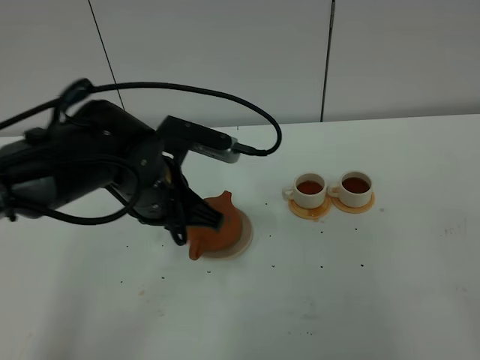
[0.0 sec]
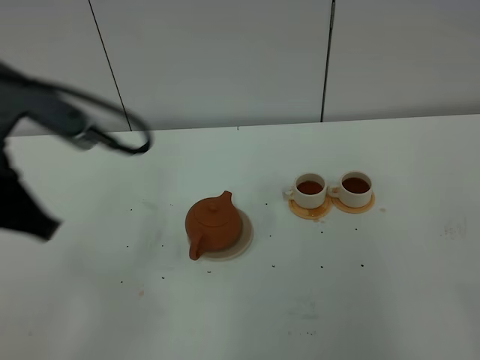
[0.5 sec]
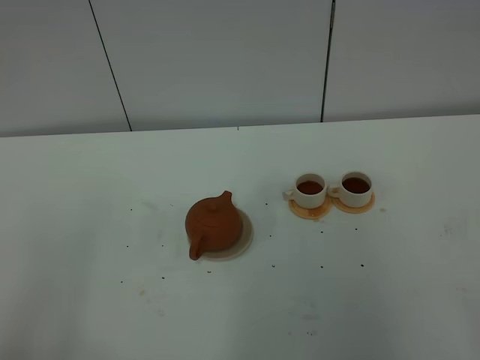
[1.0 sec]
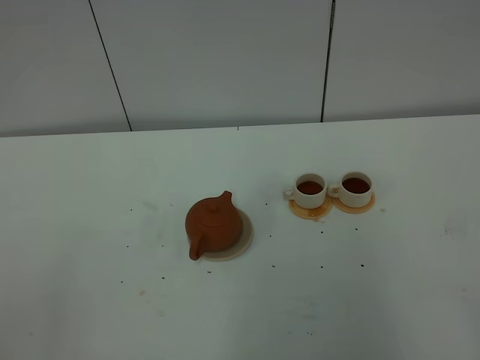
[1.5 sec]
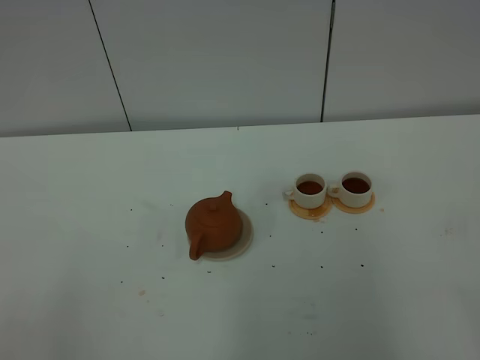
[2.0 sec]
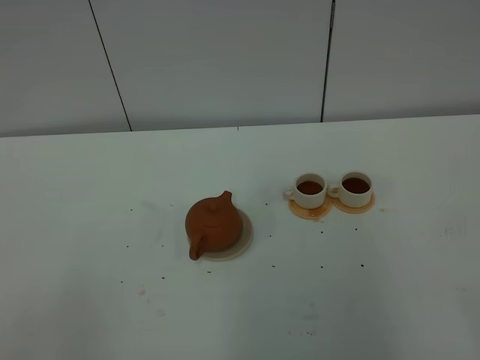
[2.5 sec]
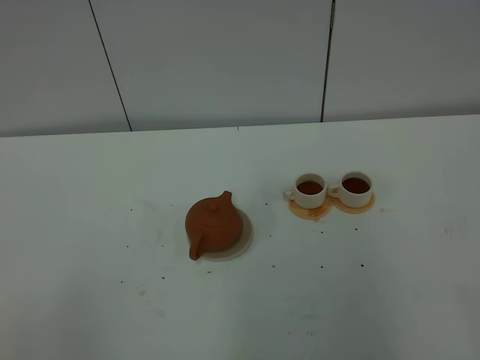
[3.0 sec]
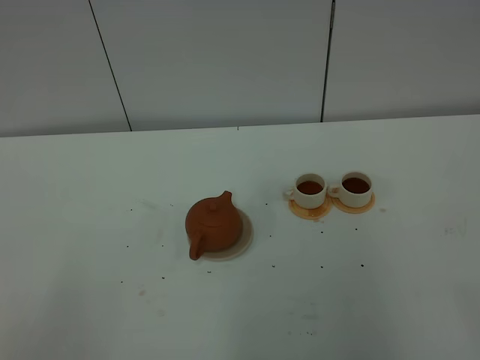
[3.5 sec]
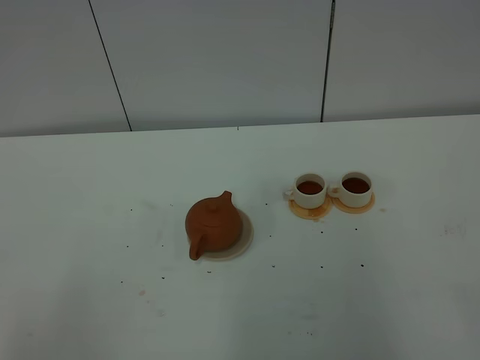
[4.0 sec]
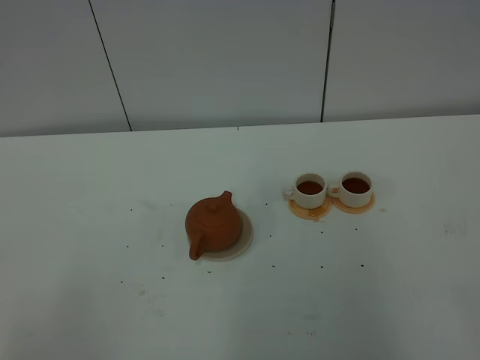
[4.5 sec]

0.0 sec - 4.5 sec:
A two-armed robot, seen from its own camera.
Task of the whole recording: grasp the brown teapot and pour the tea into the two white teacups one by one, put the brown teapot back in its original place.
0.0 sec - 2.0 sec: The left gripper travels backward and to the left by about 35 cm, and closes its fingers.

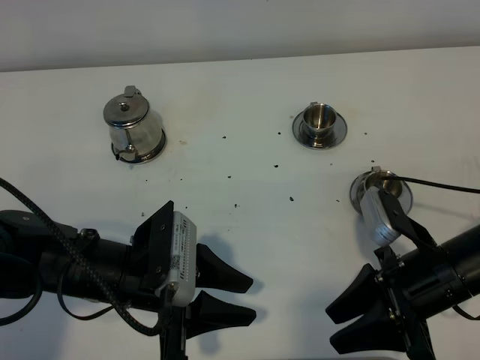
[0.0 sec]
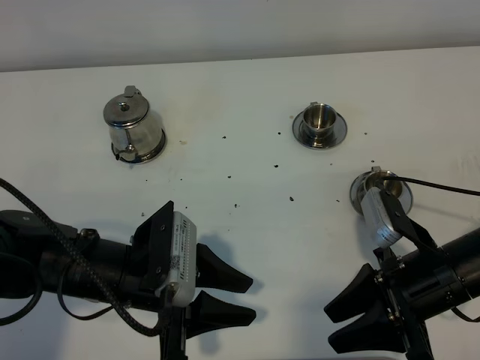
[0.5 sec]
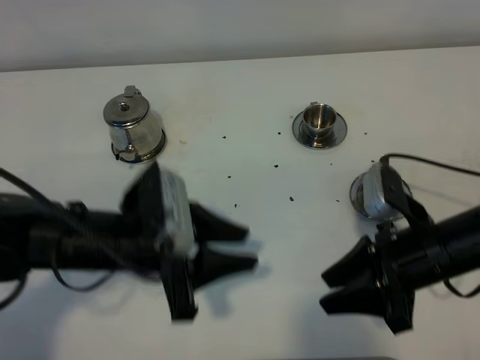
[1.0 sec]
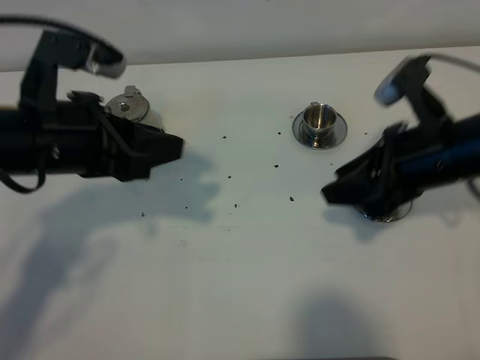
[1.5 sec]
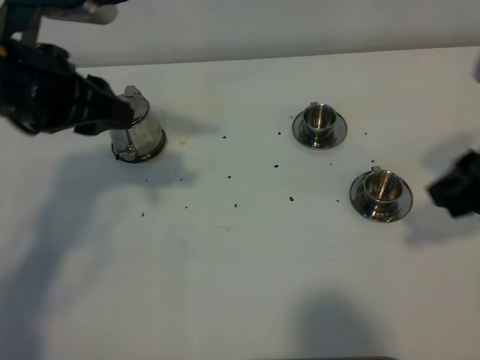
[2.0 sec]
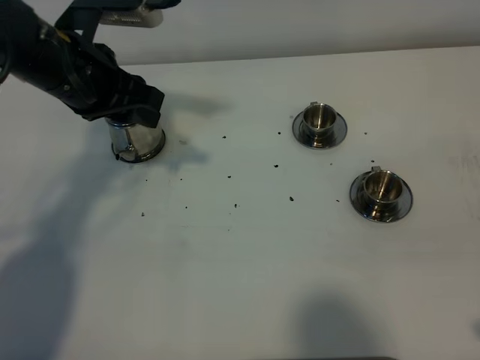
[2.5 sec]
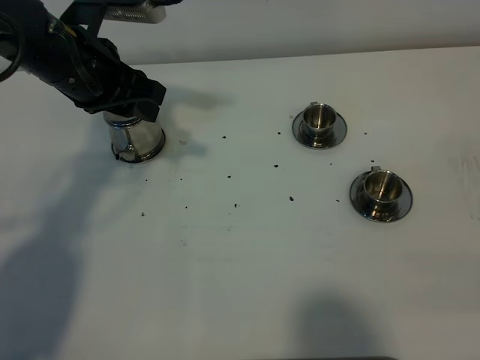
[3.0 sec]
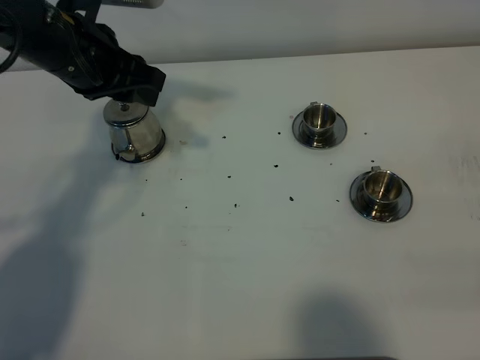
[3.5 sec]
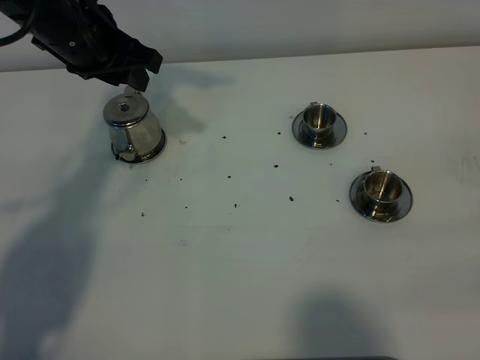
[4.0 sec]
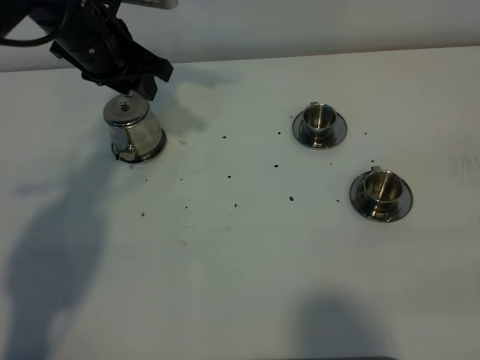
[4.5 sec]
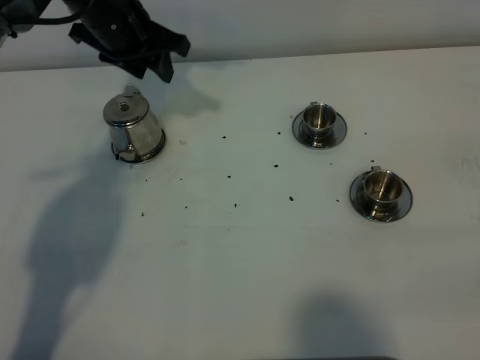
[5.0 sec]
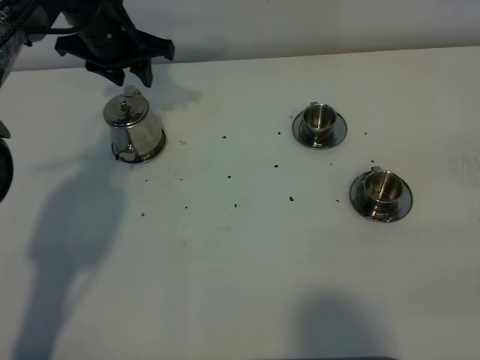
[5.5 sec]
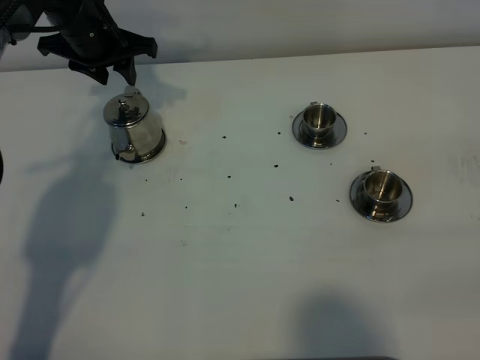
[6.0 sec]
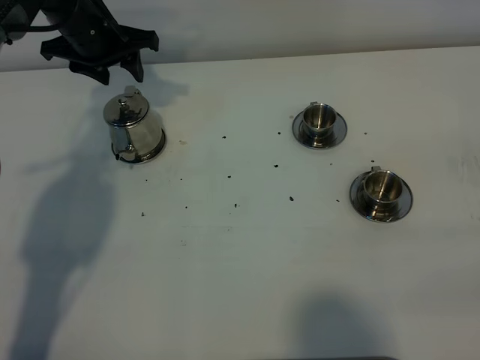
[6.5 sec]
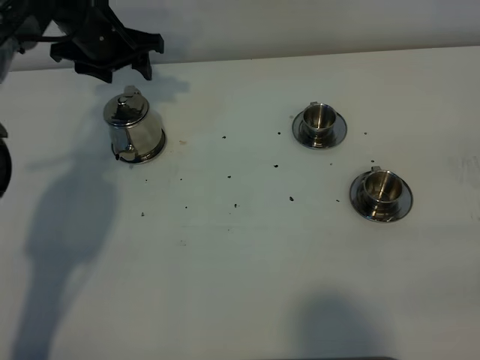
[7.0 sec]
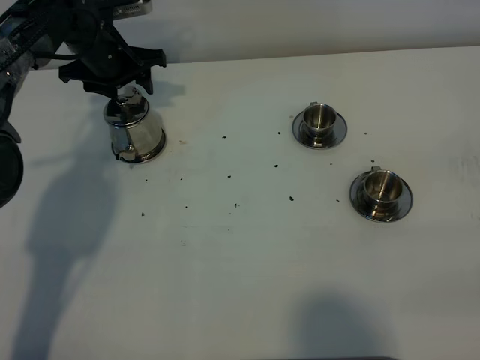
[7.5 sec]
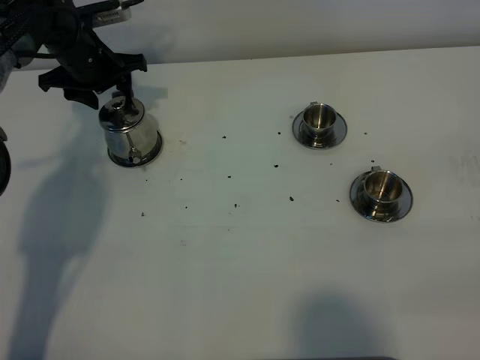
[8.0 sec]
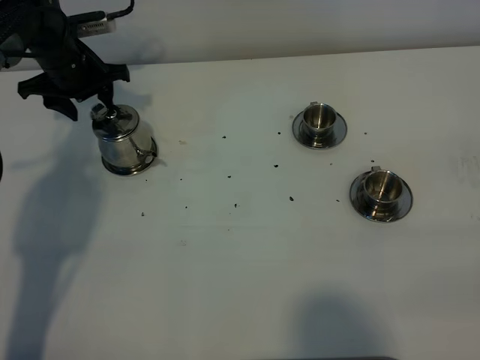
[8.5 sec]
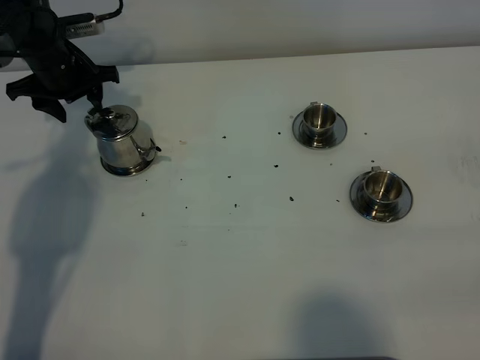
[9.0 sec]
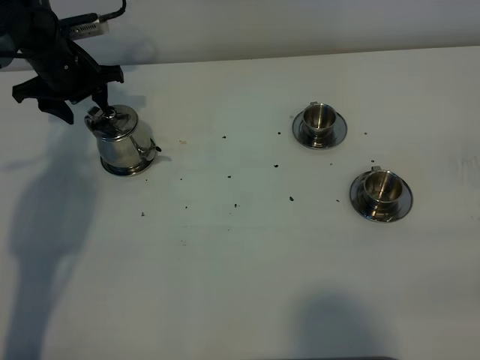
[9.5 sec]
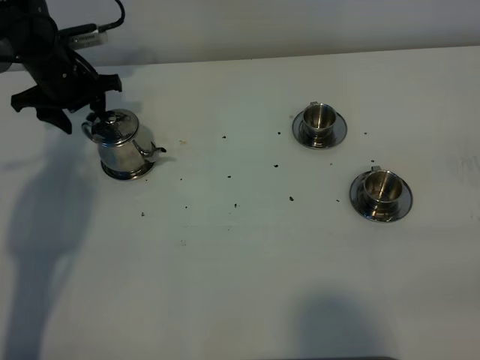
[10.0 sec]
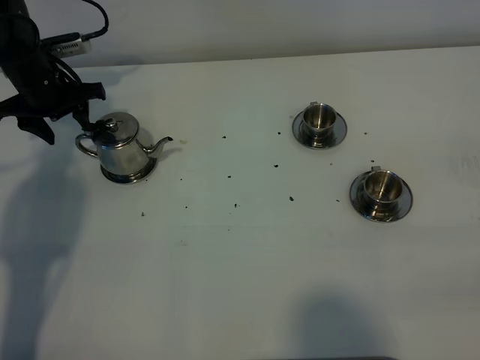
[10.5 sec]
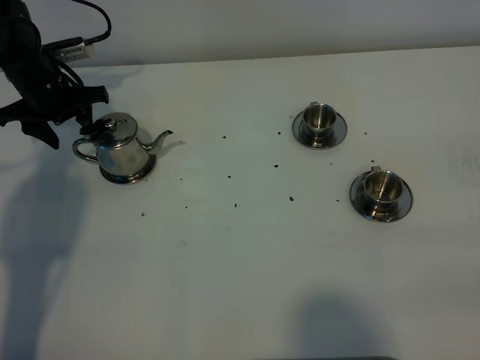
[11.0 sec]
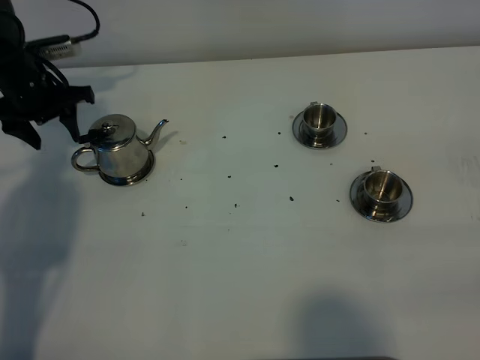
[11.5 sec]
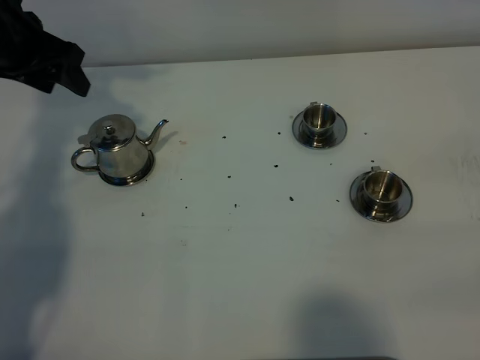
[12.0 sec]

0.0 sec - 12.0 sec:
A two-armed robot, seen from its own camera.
Task of the whole recording: grasp the stainless steel teapot and pour the tea into the two stainless steel teacups one by one, put the stainless steel teapot back in its original place.
0.0 sec - 2.0 sec: The right gripper is displaced upward by roughly 20 cm, while the left gripper heads upward and forward, covering about 20 cm.
2.0 sec - 4.0 sec: The right gripper shifts approximately 20 cm backward. The left gripper heads forward, covering roughly 10 cm.
4.0 sec - 6.0 sec: The left gripper is displaced forward and downward by some 10 cm.
6.0 sec - 8.0 sec: The left gripper goes about 5 cm downward, and opens.
8.0 sec - 10.0 sec: The grippers make only small movements.
10.0 sec - 12.0 sec: The left gripper heads upward and backward, covering roughly 15 cm.

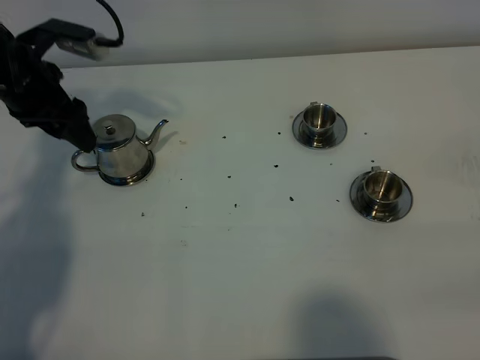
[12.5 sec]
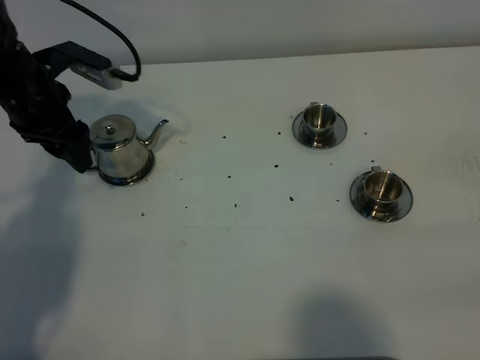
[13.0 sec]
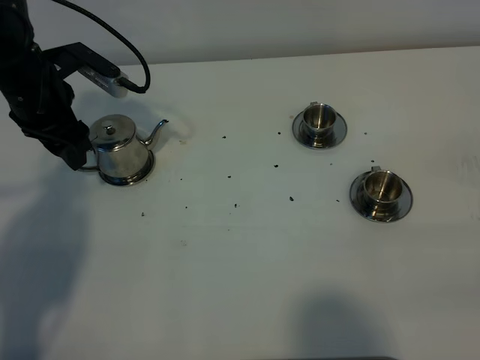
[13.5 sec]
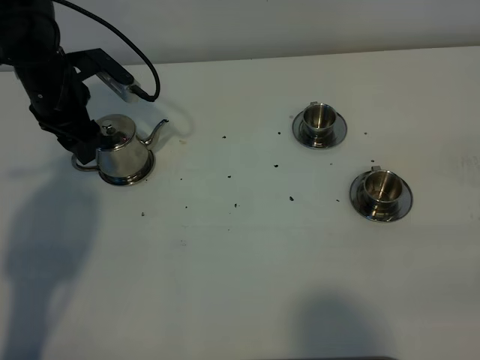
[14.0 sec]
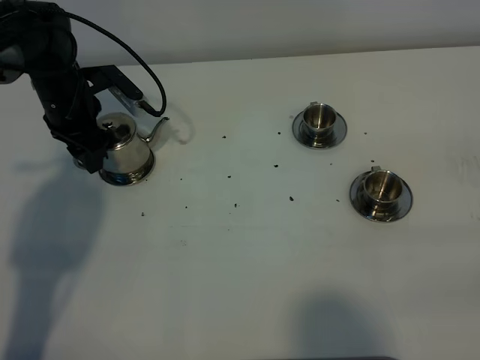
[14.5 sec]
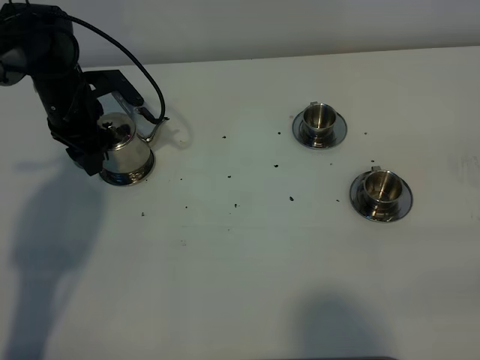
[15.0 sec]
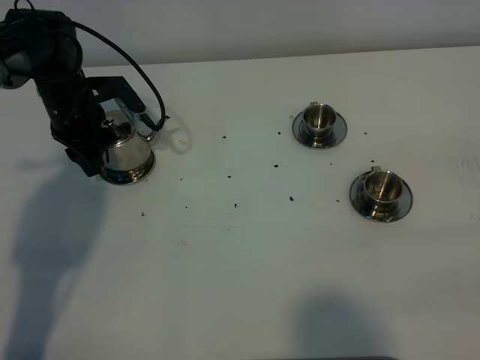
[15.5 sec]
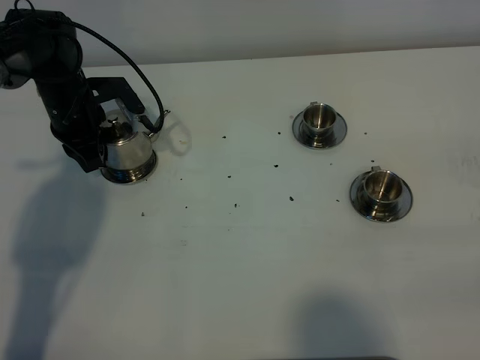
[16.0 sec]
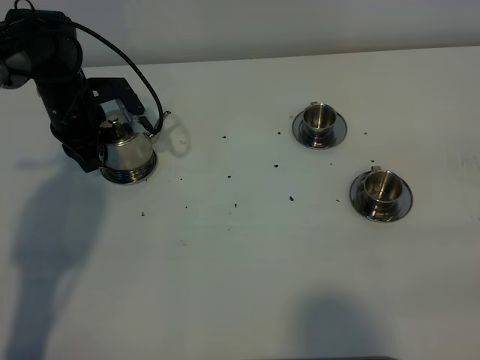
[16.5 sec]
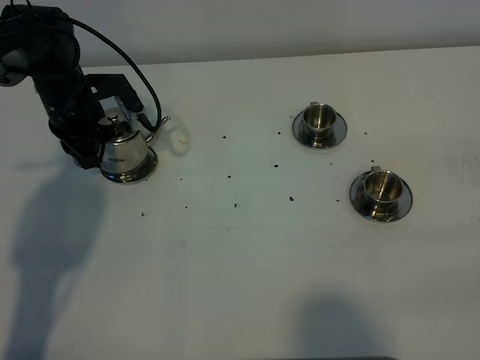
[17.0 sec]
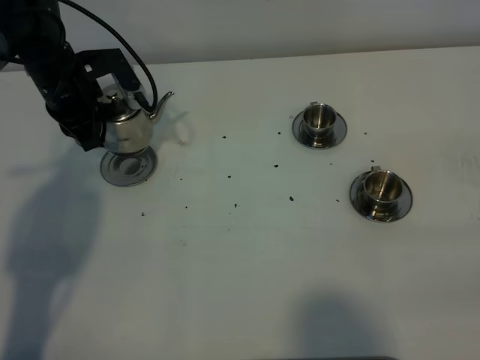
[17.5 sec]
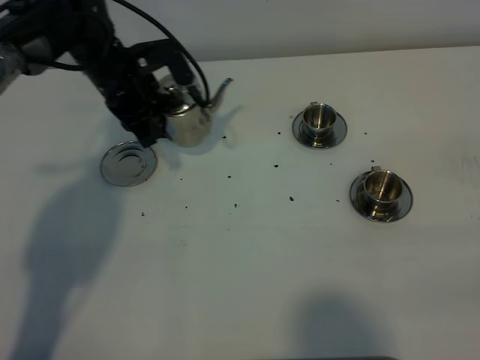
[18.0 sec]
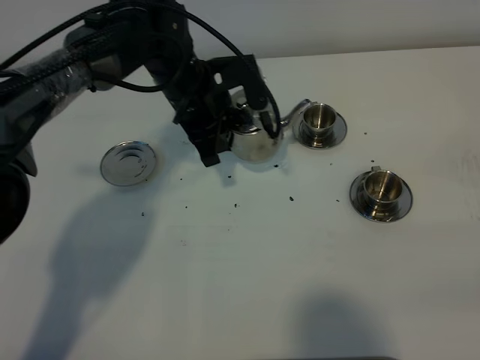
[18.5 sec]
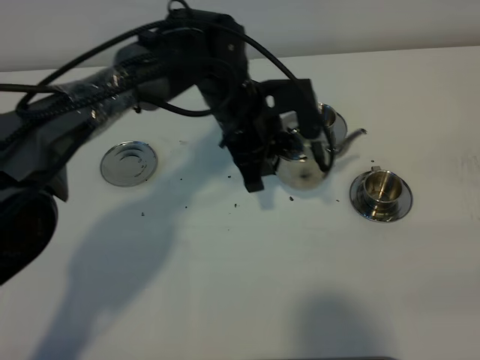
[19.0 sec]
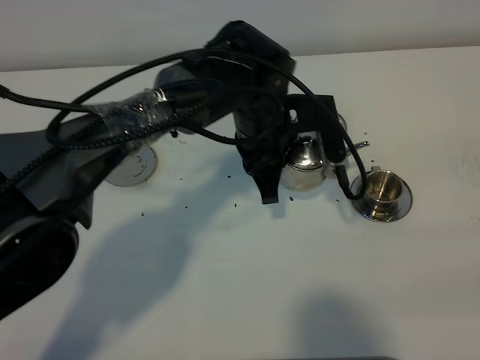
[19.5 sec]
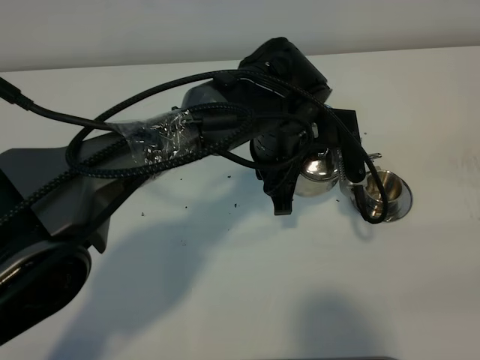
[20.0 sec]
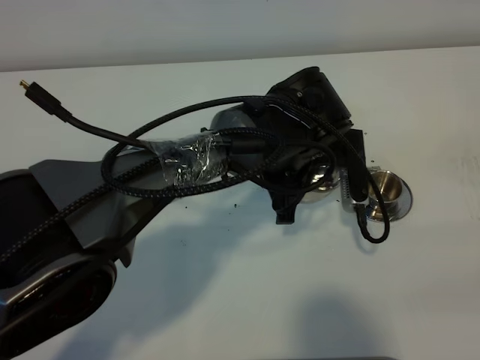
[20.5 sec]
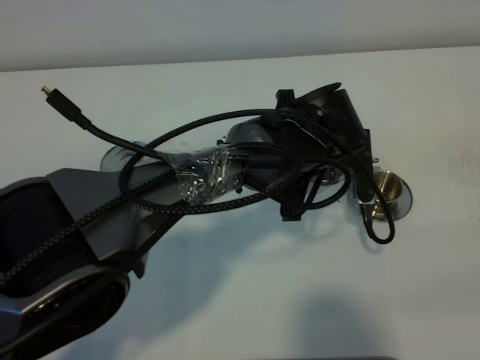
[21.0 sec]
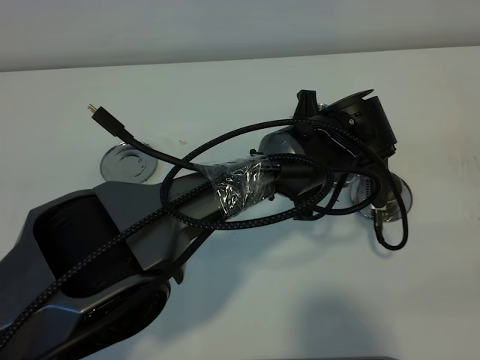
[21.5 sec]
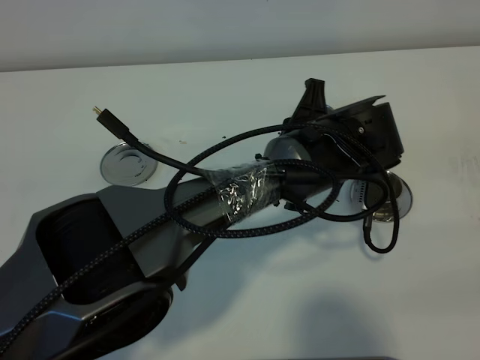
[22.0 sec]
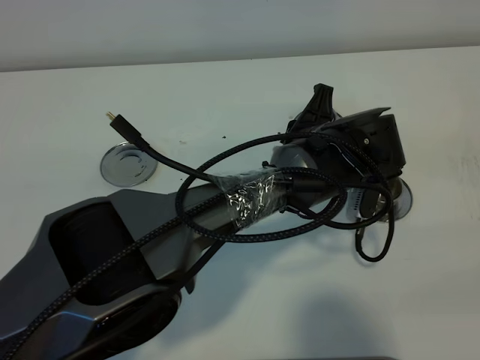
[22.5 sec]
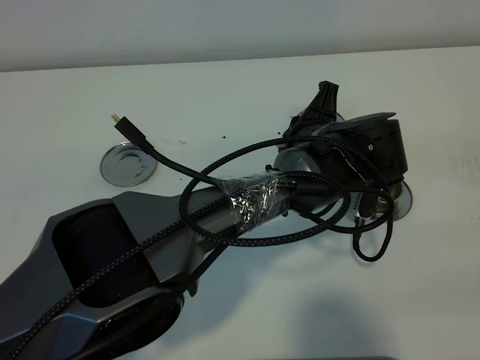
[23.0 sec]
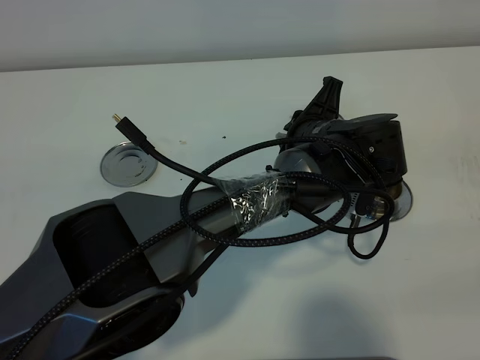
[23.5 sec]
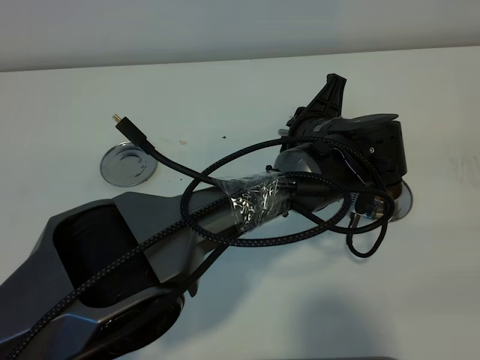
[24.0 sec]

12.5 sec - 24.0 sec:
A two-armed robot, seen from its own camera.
Task of the whole recording: grasp the stainless steel teapot and pour the tea into the two stainless steel teacups one by one, put the stainless steel teapot back in its original place.
Step, 12.5 sec - 17.0 sec: Pick up the teapot with the left gripper.
12.5 sec - 14.5 sec: The left gripper travels downward and forward by some 10 cm.
14.5 sec - 16.5 sec: The left gripper closes its fingers.
16.5 sec - 18.5 sec: The left gripper goes approximately 20 cm to the right.
18.5 sec - 20.0 sec: The left gripper goes roughly 15 cm to the right and backward.
20.0 sec - 22.0 sec: The left gripper goes approximately 5 cm to the right.
22.0 sec - 24.0 sec: There are only small adjustments of the grippers.
